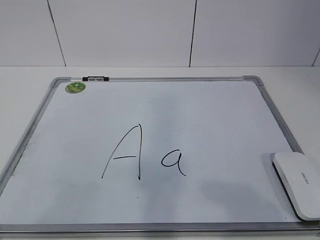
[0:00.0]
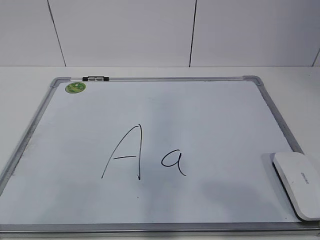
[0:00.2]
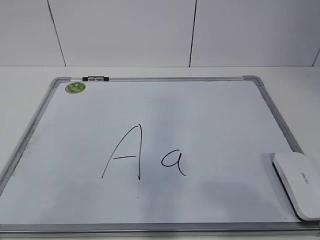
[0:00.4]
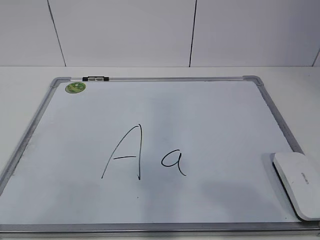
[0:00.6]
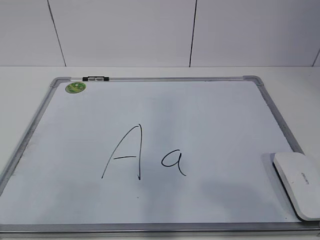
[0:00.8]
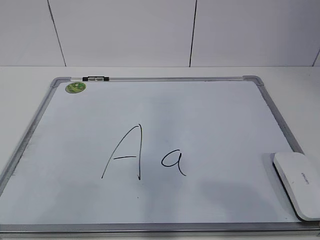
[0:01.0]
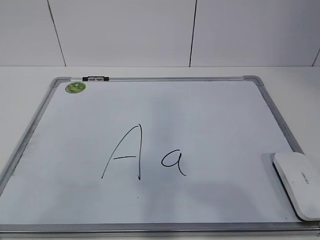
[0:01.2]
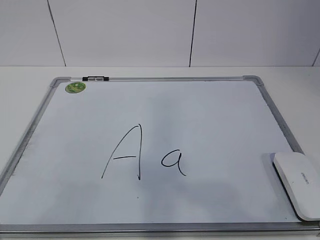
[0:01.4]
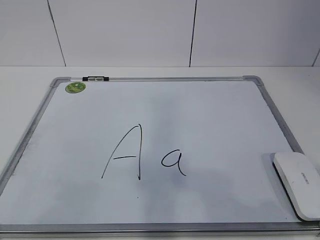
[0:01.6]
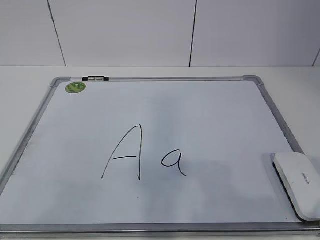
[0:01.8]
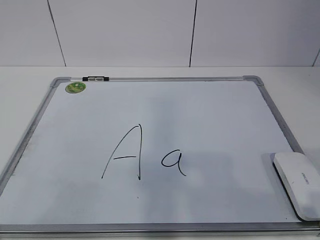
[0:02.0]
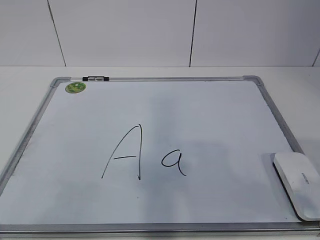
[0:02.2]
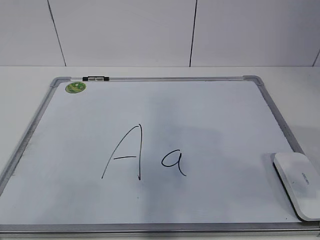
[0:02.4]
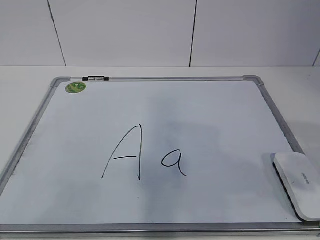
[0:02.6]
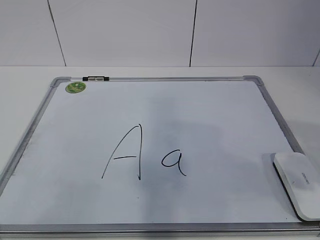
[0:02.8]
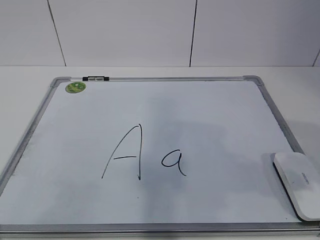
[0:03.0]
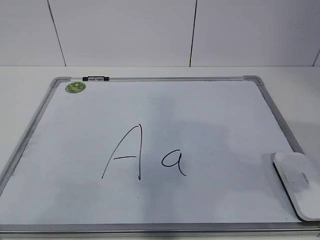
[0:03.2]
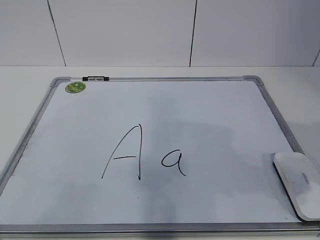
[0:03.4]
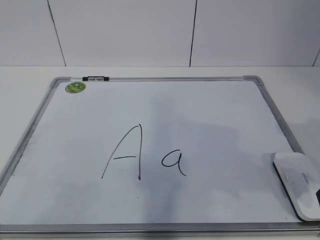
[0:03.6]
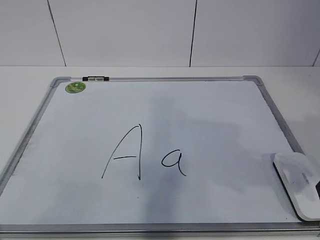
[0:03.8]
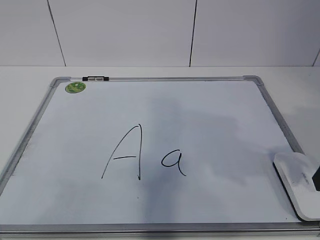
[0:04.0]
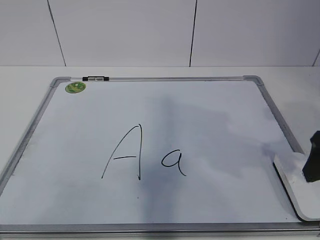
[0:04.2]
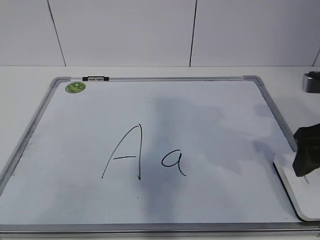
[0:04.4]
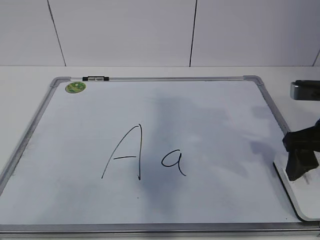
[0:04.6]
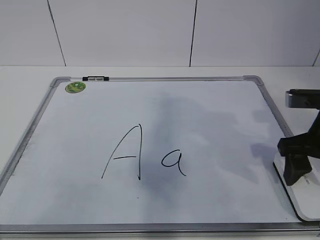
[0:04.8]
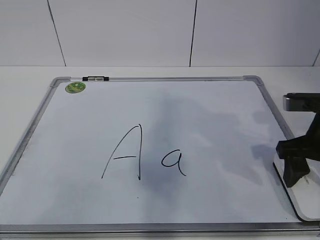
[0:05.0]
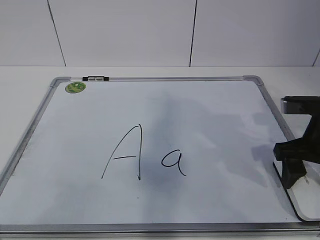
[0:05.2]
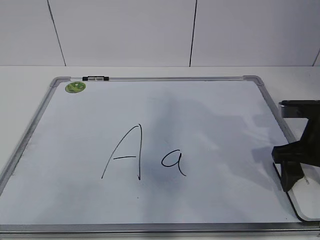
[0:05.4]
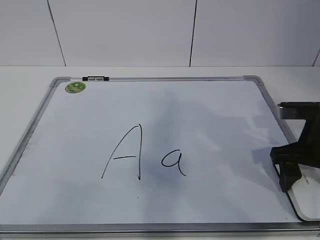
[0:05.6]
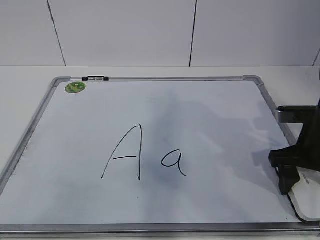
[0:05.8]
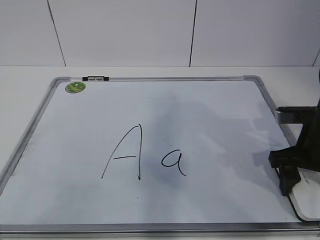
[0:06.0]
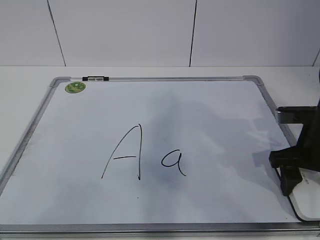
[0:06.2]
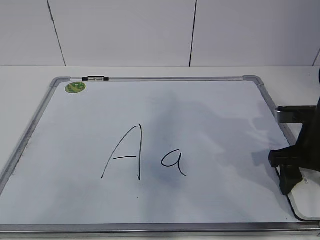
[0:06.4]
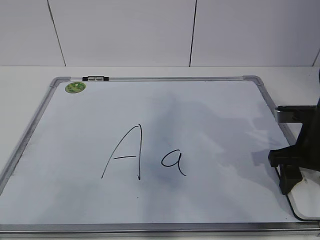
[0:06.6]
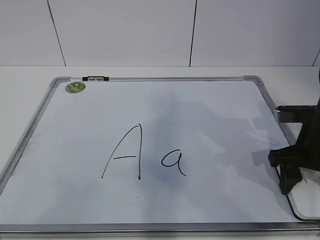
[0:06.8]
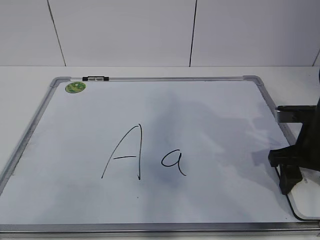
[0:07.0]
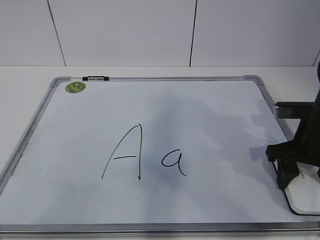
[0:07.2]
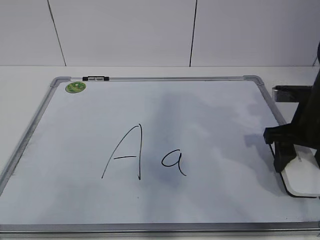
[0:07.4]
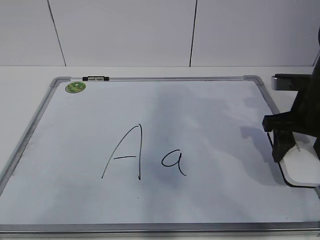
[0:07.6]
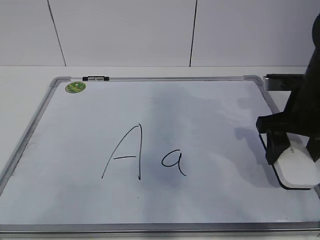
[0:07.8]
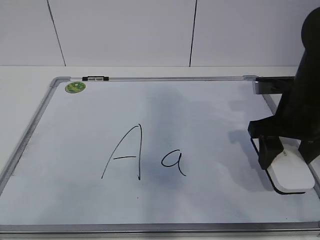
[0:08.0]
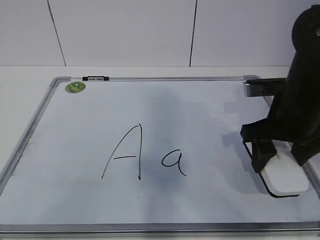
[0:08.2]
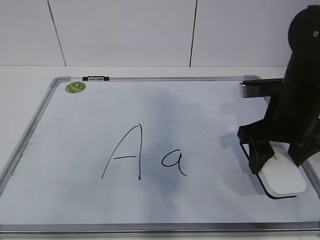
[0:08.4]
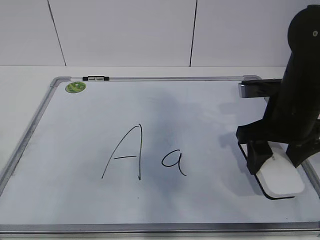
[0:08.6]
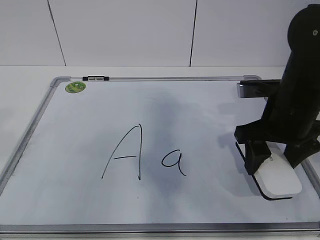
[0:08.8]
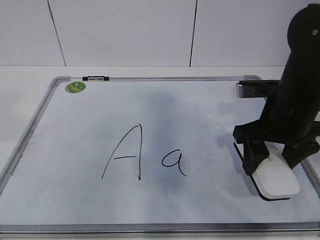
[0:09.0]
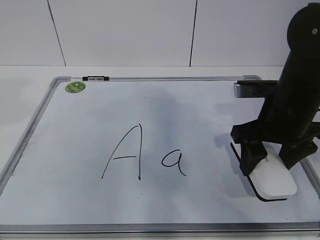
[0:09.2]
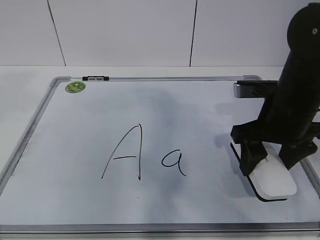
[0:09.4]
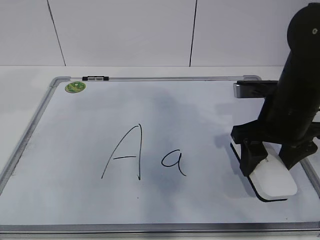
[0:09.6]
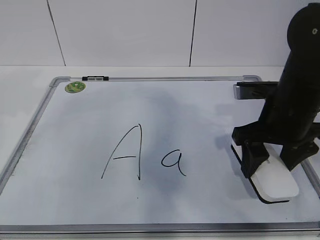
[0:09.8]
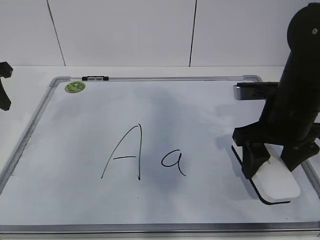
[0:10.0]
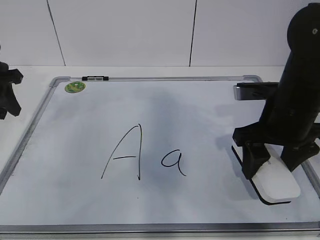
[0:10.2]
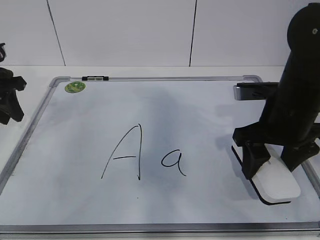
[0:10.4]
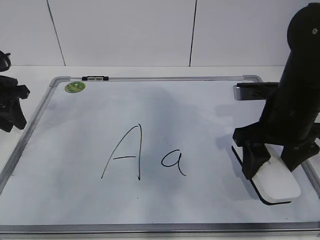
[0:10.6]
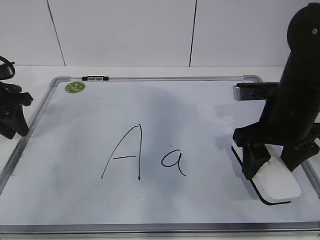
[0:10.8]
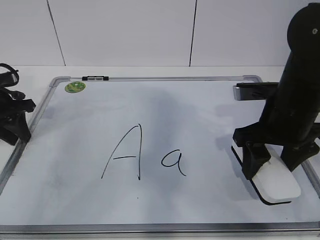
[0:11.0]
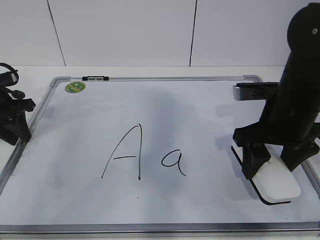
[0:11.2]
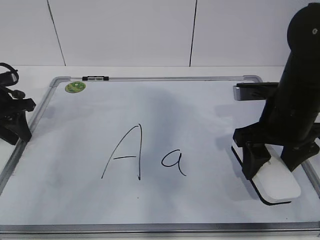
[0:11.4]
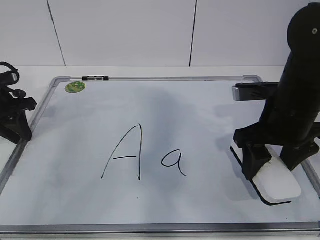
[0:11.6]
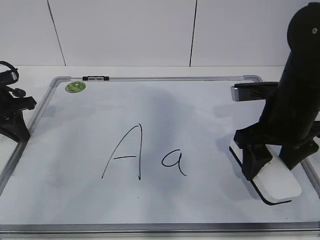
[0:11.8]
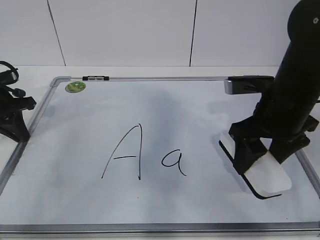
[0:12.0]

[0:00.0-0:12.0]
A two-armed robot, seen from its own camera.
Task of the whole recording: pick up the eraser on the blackboard and erase the letter "a".
Step, 0:00.0 to 0:05.8: Grab the eraser with your right hand.
Step, 0:06.0 to 0:09.8: Hold the drawing board steady with your left hand.
0:03.0 to 0:04.4: The right gripper heads forward, covering about 10 cm, and opens.
0:04.4 to 0:06.0: The right gripper goes approximately 10 cm downward.
0:06.0 to 0:07.6: The right gripper changes place by some 5 cm, and closes up.
0:07.6 to 0:09.0: The right gripper shifts some 5 cm to the left.
0:09.0 to 0:10.4: The left gripper moves forward and downward, about 25 cm.
0:10.4 to 0:12.0: The left gripper is displaced downward by about 5 cm, and closes up.

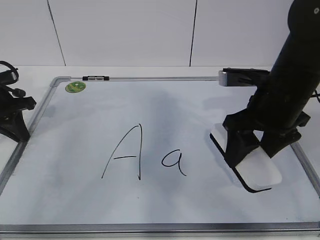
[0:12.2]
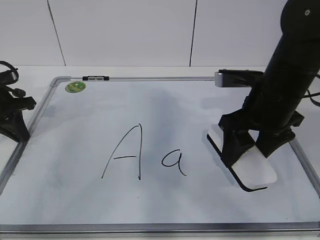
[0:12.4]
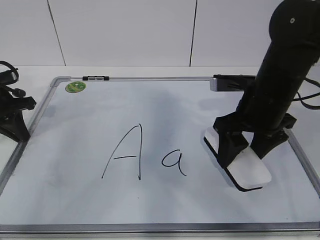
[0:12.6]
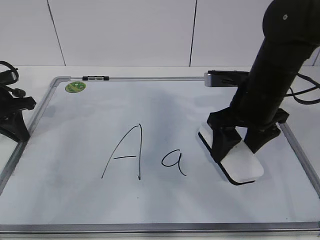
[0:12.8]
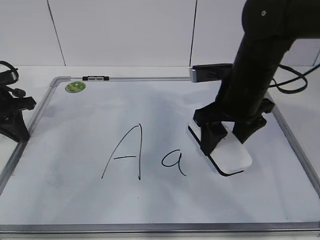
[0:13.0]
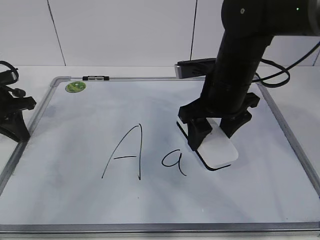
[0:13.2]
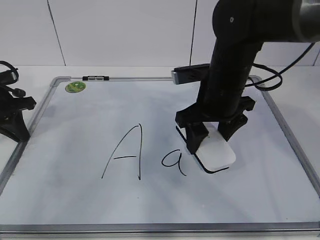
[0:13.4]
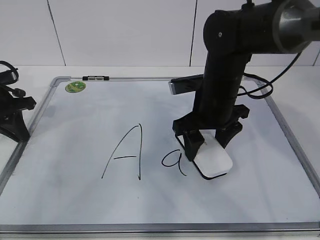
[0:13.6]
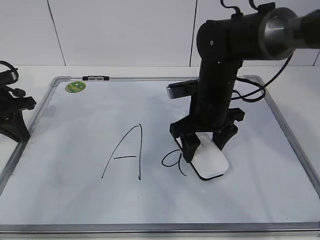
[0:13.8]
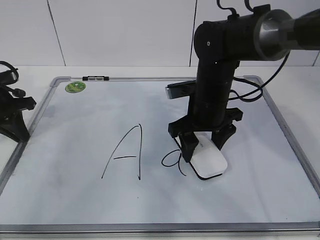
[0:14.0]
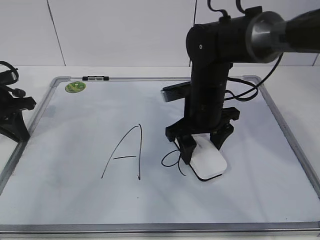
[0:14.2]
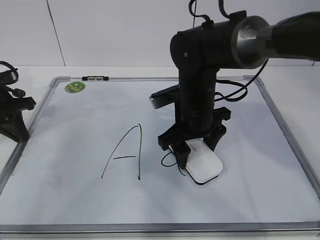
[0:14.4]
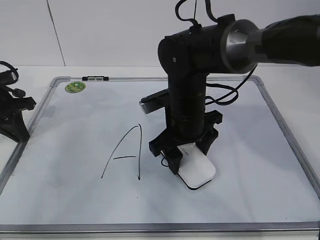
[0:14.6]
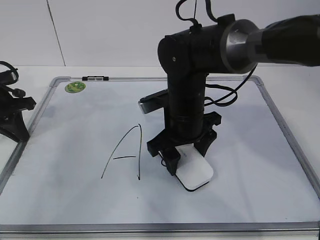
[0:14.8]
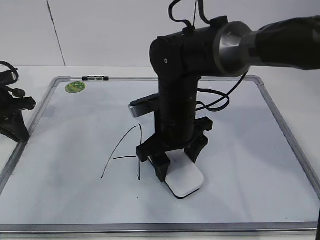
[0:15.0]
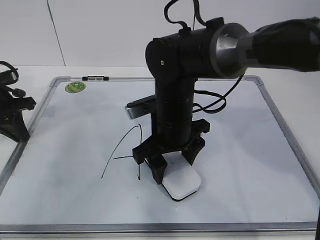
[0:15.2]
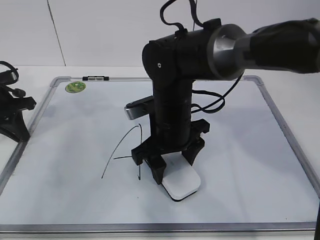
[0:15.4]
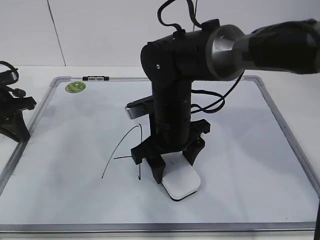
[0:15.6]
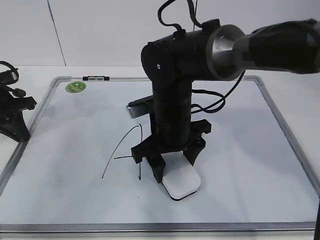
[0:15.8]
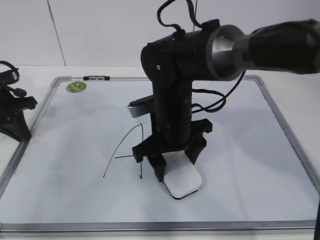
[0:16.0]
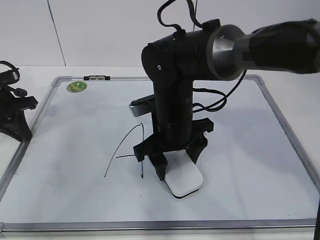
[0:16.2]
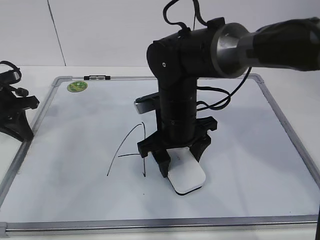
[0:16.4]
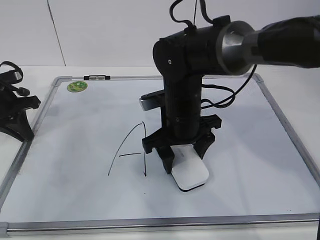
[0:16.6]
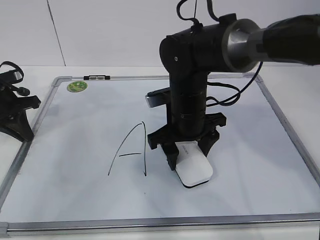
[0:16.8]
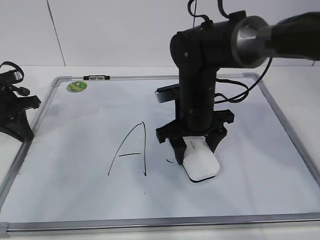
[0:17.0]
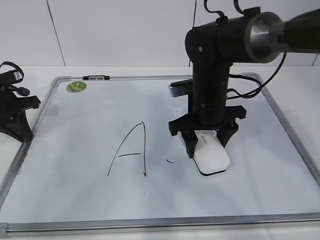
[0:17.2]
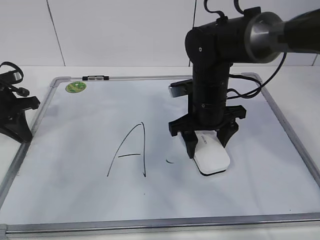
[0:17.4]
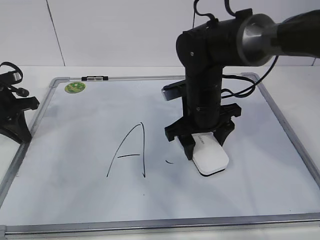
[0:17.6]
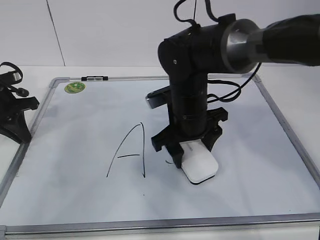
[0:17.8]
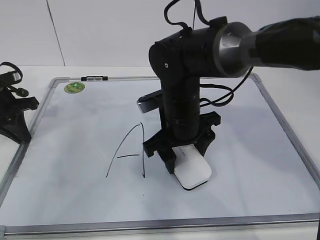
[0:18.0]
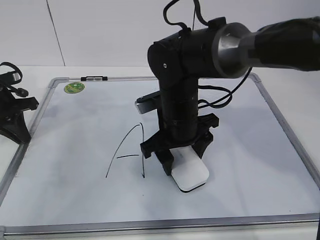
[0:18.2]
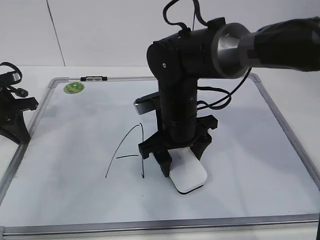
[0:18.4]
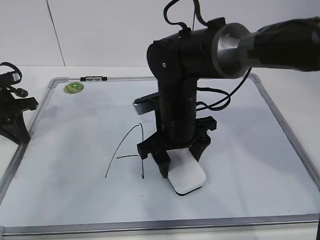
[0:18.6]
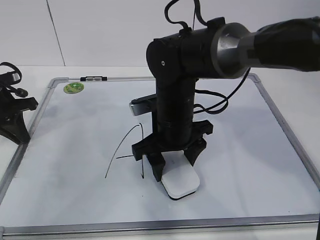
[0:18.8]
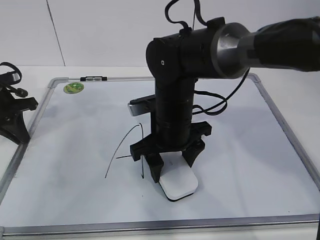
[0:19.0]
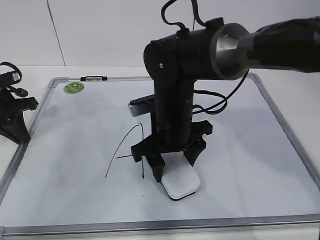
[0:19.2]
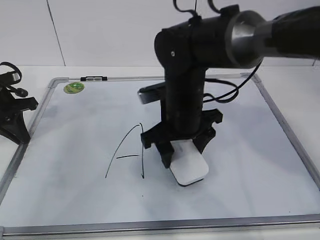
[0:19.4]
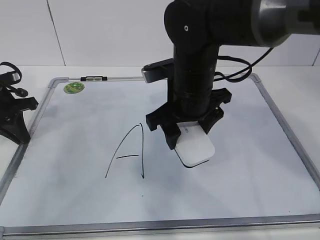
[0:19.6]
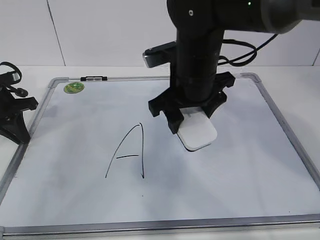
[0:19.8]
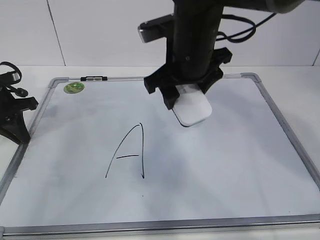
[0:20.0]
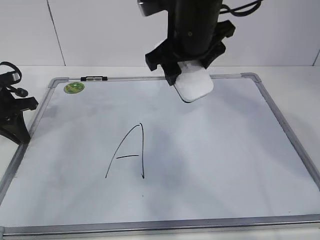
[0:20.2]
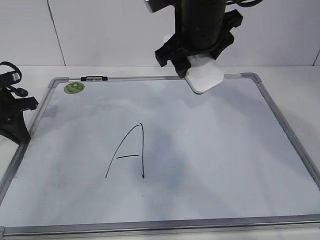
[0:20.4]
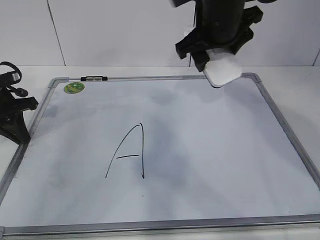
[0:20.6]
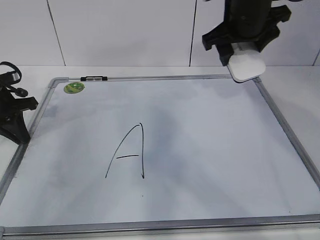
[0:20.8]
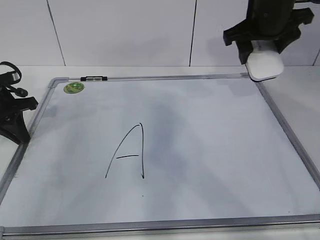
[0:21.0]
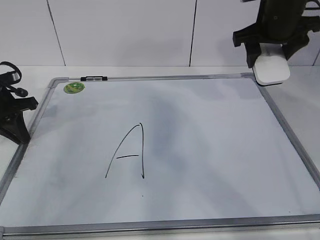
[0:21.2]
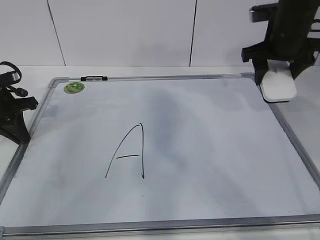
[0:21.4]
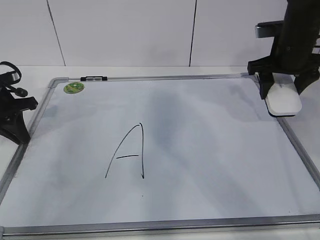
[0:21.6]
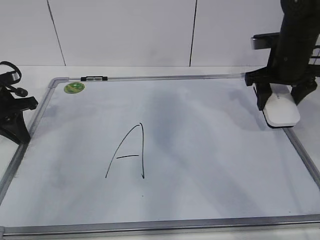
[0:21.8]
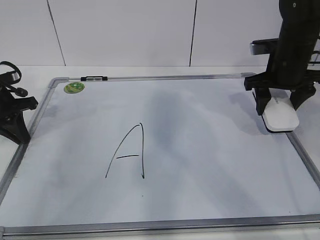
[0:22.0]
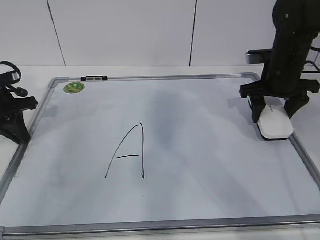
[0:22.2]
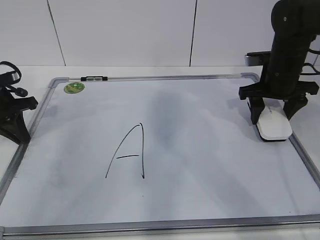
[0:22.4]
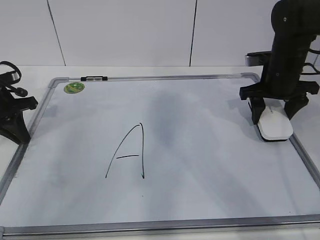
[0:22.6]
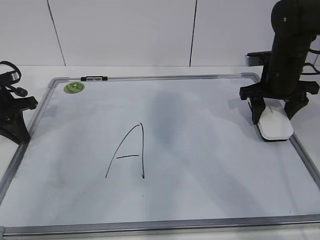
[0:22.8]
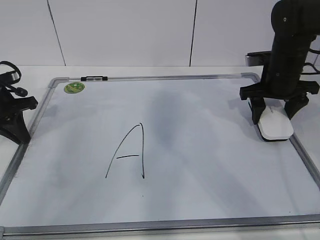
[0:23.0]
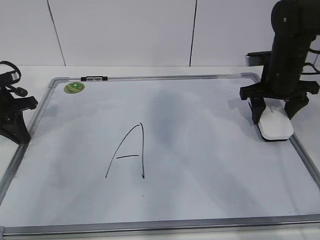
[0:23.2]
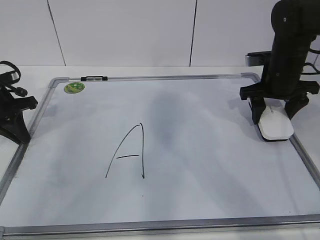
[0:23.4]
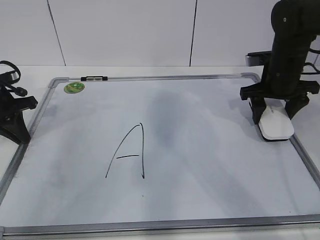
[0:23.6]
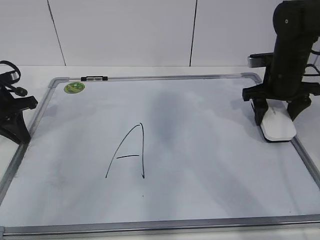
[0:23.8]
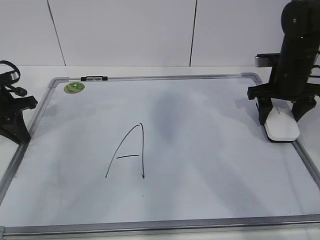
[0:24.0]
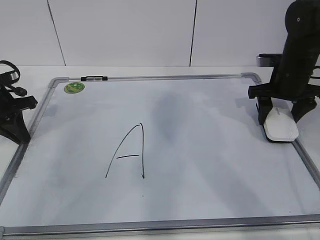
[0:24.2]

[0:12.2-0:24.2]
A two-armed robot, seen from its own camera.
Task of the whole recording: pick up the eraser on the blackboard and erase the letter "a".
Step, 0:12.2 to 0:16.0: Erase the letter a with your right hand.
Step, 0:16.2 to 0:20.2: Put down the eraser with your right hand.
0:12.2 to 0:13.8: The right gripper travels to the left, forward and downward by about 10 cm.
0:13.8 to 0:15.2: The right gripper moves to the left, some 5 cm.
0:16.6 to 0:18.2: There are only small adjustments of the grippers.
0:18.2 to 0:19.8: The right gripper is displaced upward by about 10 cm.
0:19.8 to 0:21.2: The right gripper heads to the right and forward, covering about 20 cm.
0:21.2 to 0:22.6: The right gripper goes some 10 cm downward.
0:22.6 to 0:24.2: The grippers make only small movements.
